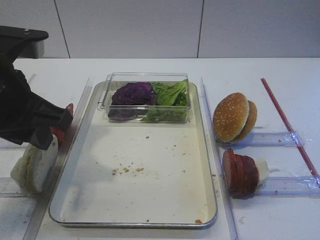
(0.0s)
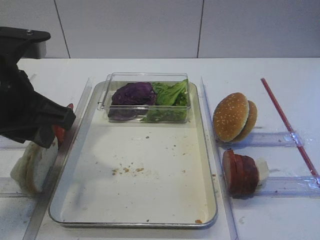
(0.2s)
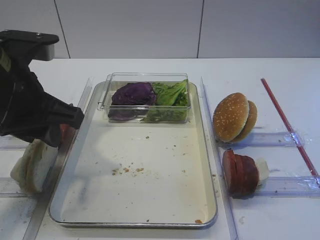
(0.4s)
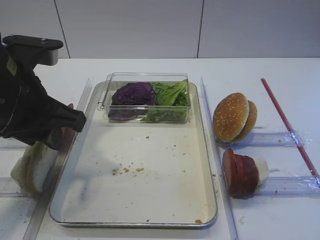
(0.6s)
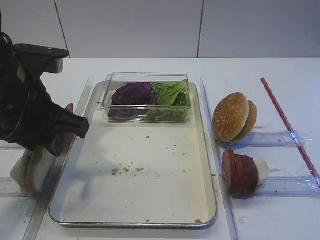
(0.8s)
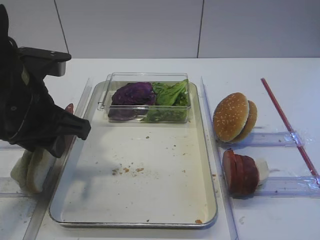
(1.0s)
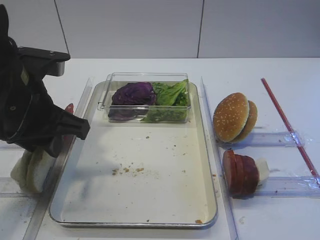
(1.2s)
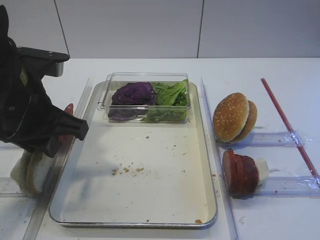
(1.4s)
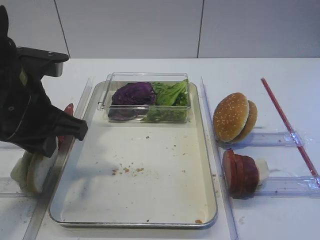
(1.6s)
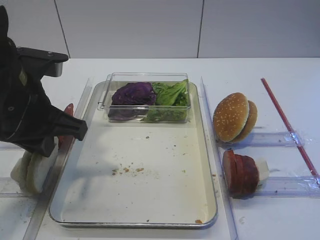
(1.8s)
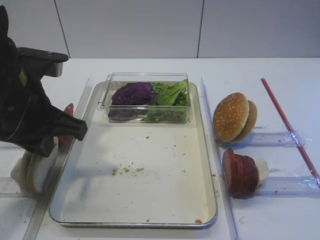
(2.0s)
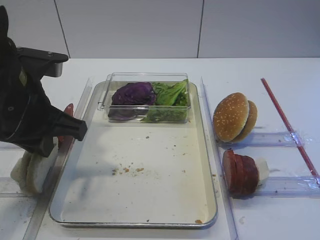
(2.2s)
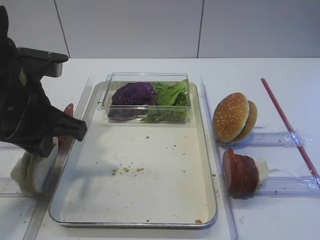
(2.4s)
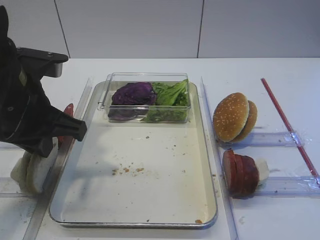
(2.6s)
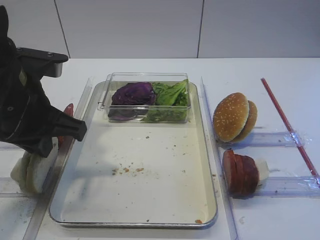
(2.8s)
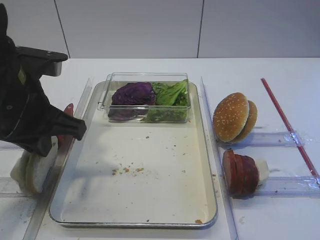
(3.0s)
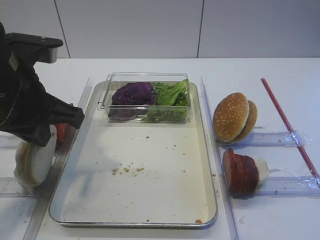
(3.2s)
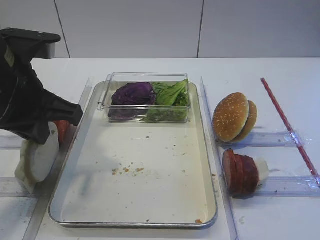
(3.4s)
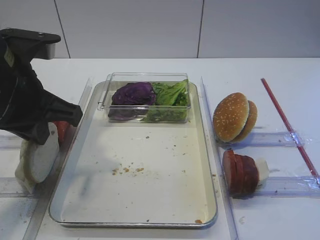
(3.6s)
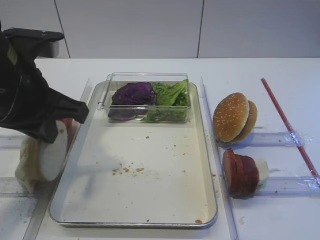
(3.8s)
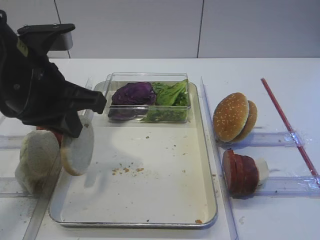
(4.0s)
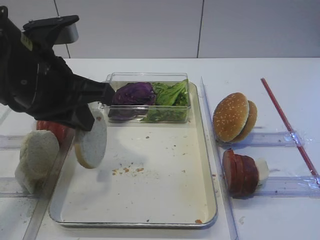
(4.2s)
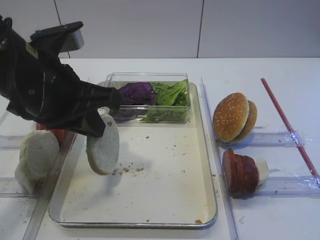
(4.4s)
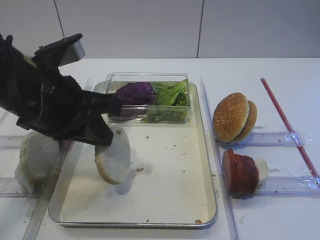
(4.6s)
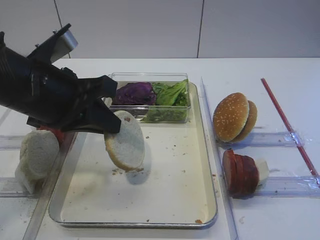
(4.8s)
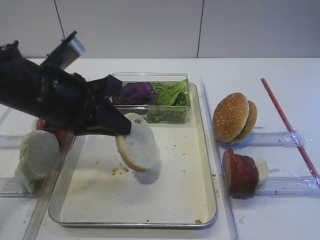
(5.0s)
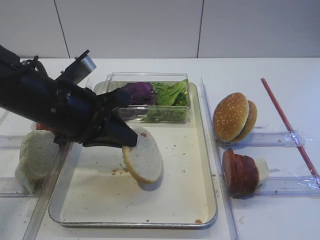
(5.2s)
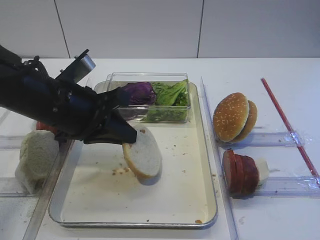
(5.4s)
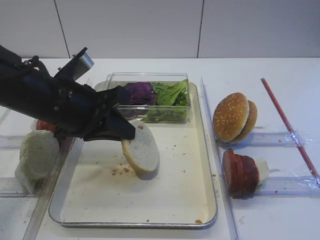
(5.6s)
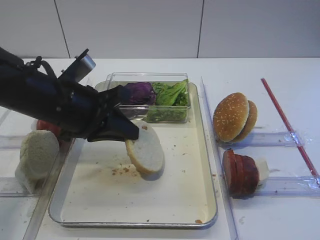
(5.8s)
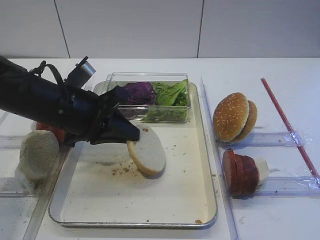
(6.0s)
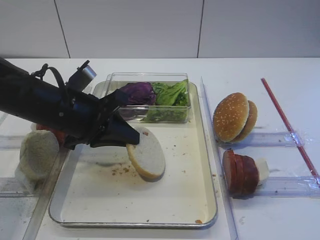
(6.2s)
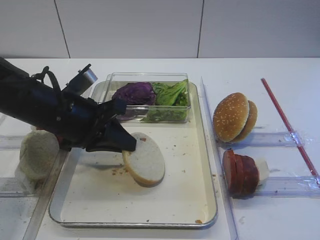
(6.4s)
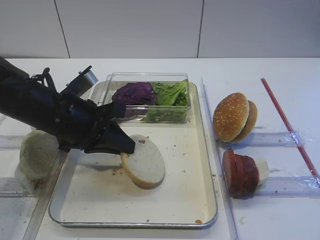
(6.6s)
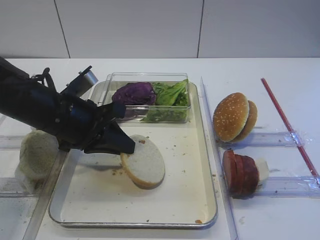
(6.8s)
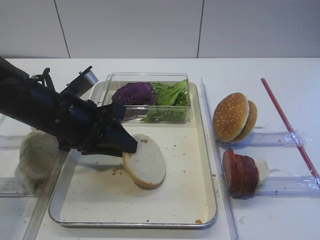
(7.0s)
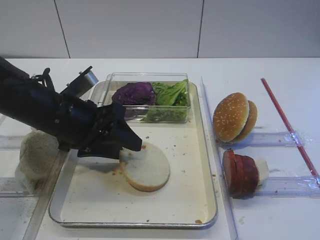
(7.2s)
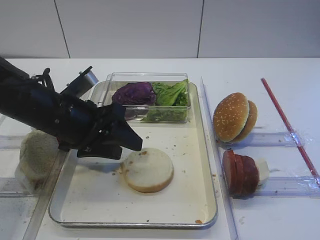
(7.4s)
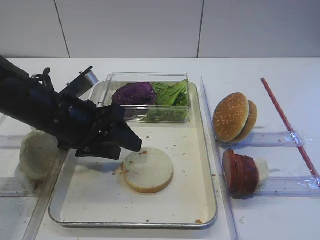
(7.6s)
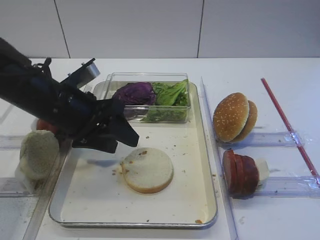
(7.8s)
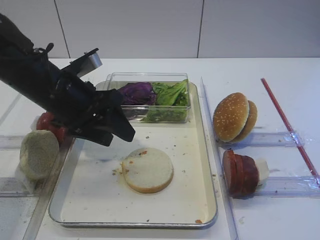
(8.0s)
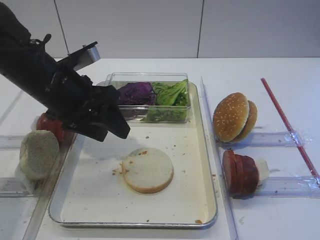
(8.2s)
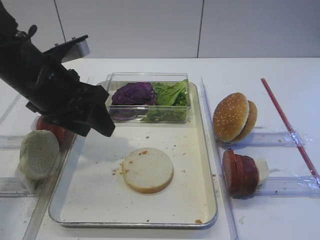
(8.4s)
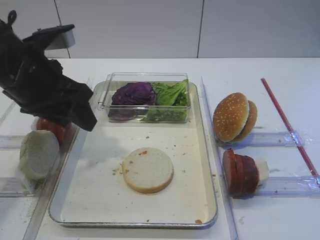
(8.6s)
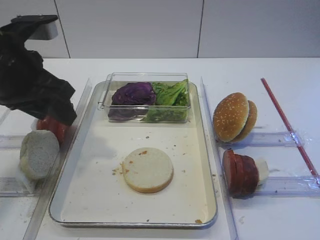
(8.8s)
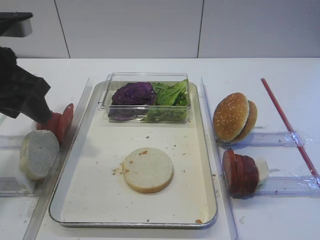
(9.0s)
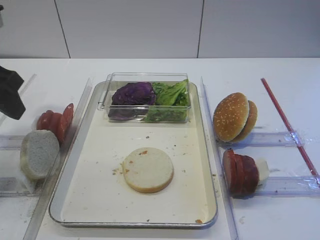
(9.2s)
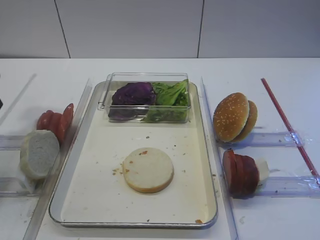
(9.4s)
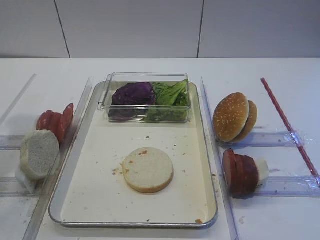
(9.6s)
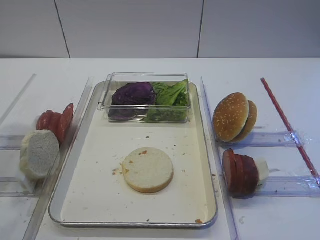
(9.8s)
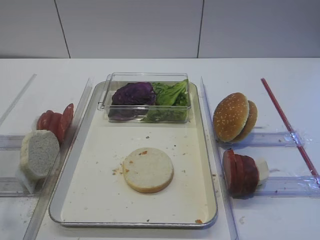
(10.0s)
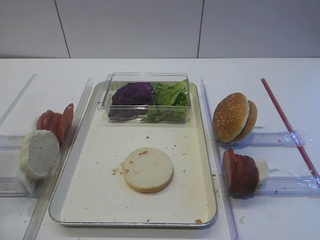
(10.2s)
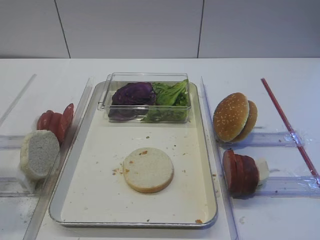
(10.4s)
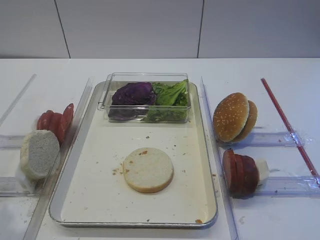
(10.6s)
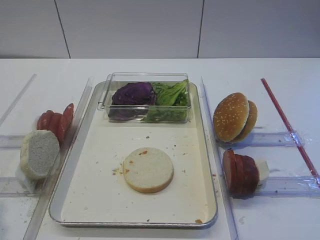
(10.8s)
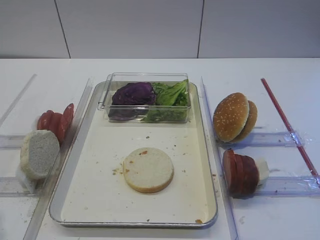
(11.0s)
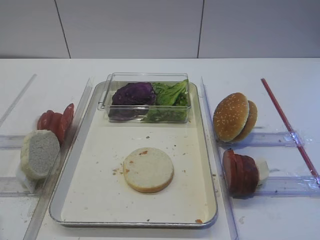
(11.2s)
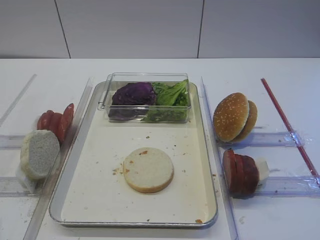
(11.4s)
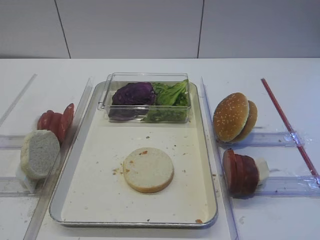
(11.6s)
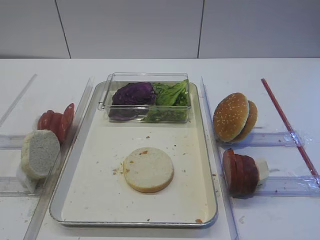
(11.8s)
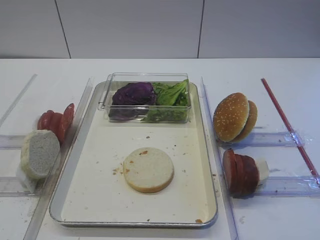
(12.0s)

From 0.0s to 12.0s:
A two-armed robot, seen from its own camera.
Step, from 0.0s to 3.4s: Pick up the bread slice with the left gripper.
Step, from 3.6s to 7.8s: Place the bread slice on the tray with the left gripper.
From 0.0s to 1.6s: There are only small adjustments of the grippers.
From 1.6s to 3.0s: Neither gripper changes place.
From 4.4s to 6.0s: The left gripper travels downward by roughly 10 cm.
From 6.0s to 7.6s: The left gripper opens its fingers.
From 7.6s to 9.0s: The left gripper heads upward and to the left, covering about 15 cm.
From 9.0s to 10.4s: The left gripper shifts approximately 15 cm backward and to the left.
From 10.4s to 12.0s: The left gripper is displaced backward by approximately 10 cm.

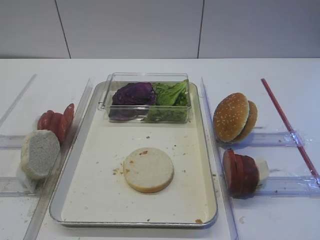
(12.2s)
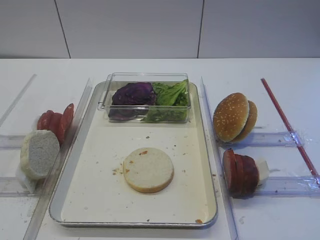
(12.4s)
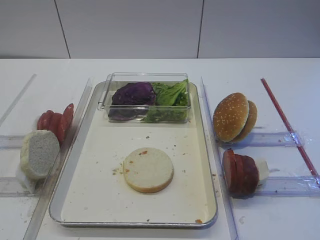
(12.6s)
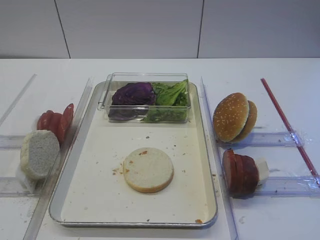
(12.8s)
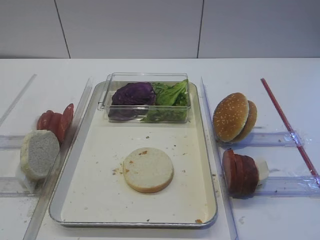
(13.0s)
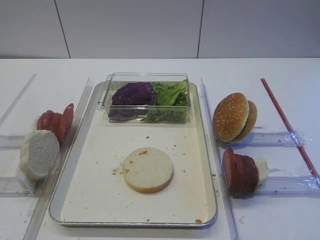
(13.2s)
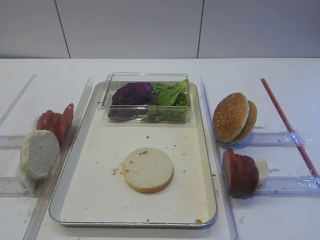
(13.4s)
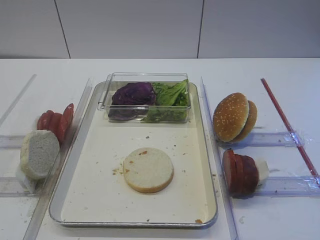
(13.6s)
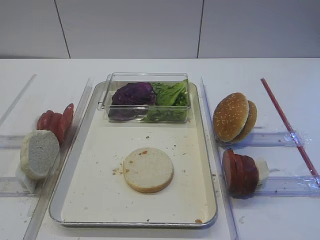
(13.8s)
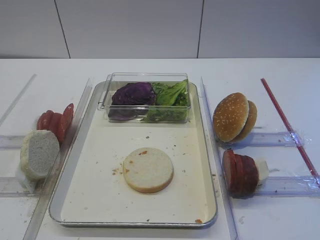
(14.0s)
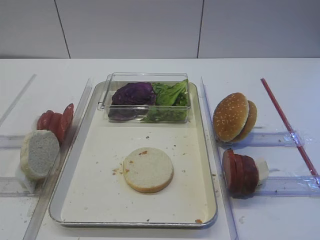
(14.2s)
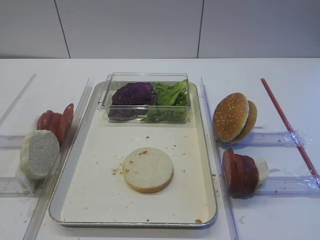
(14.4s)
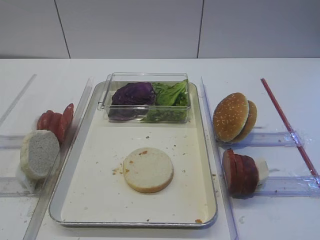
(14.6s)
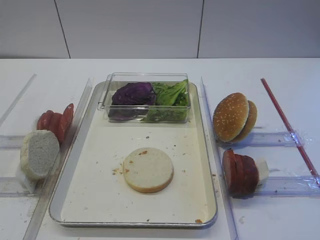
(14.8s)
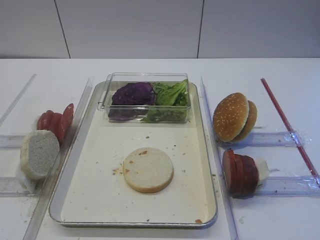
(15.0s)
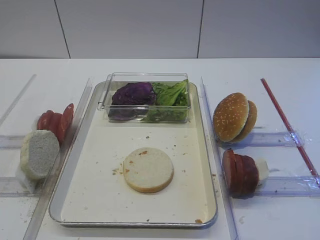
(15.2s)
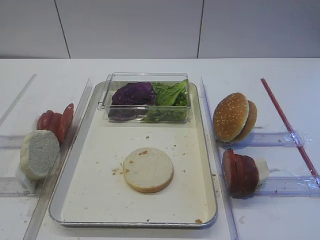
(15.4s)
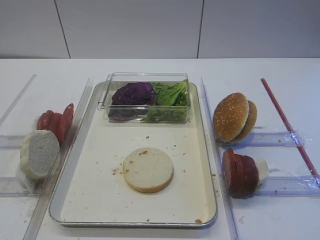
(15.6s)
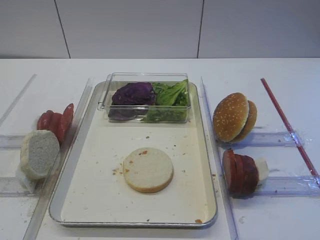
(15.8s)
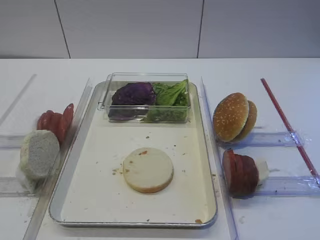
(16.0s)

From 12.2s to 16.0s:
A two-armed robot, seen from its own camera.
From 12.2s to 16.0s: The two grippers keep their place.

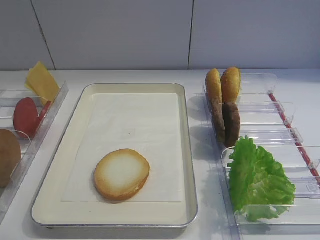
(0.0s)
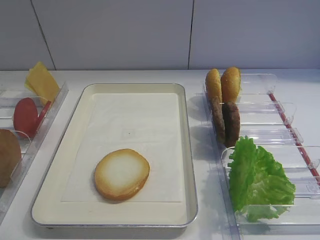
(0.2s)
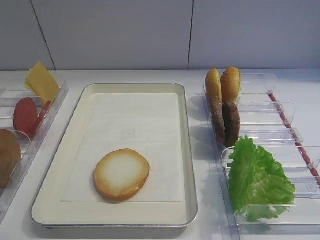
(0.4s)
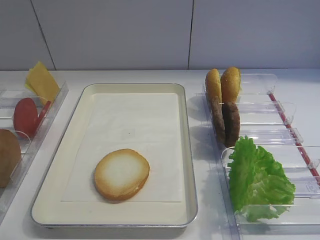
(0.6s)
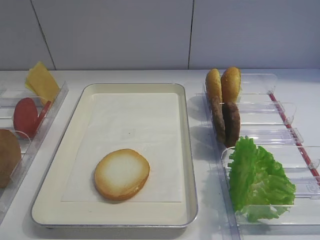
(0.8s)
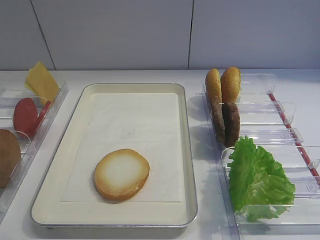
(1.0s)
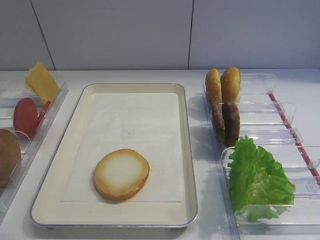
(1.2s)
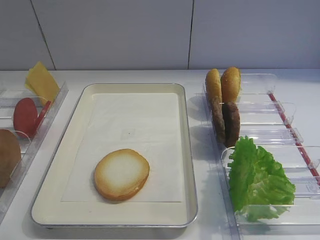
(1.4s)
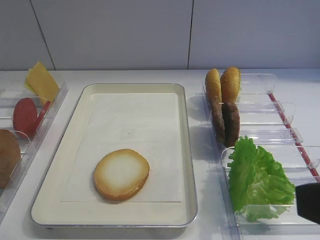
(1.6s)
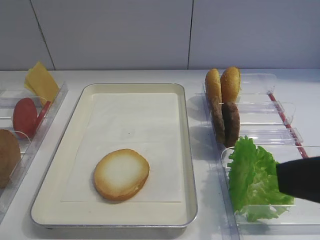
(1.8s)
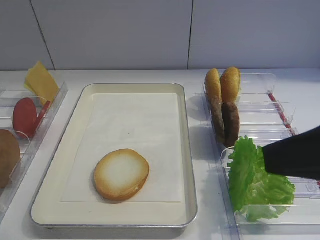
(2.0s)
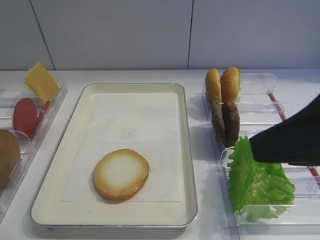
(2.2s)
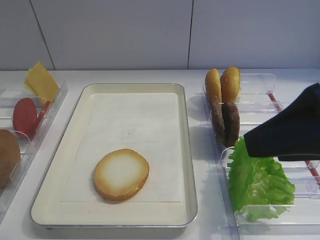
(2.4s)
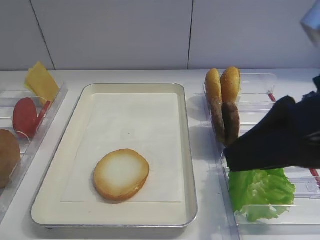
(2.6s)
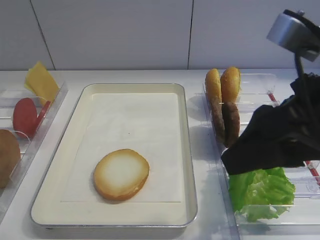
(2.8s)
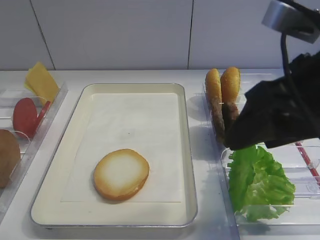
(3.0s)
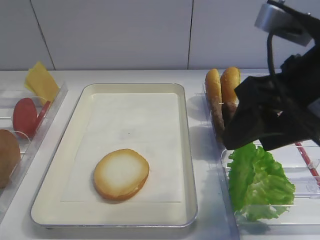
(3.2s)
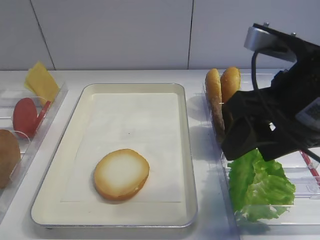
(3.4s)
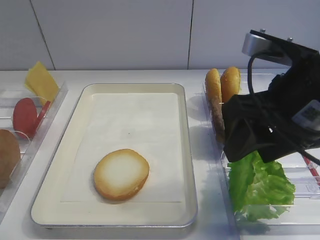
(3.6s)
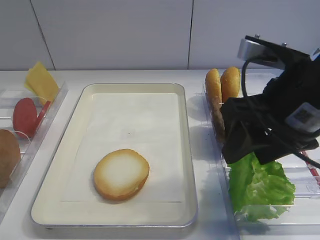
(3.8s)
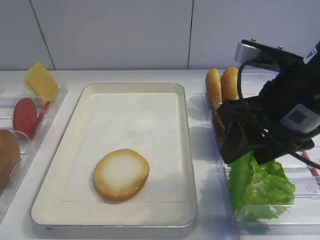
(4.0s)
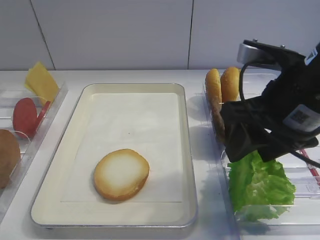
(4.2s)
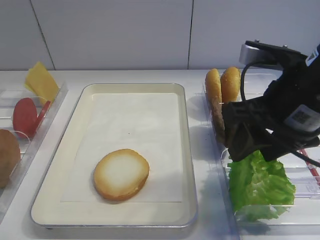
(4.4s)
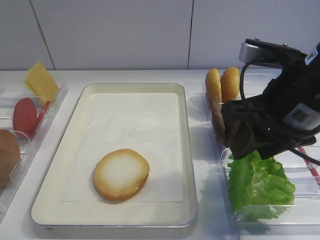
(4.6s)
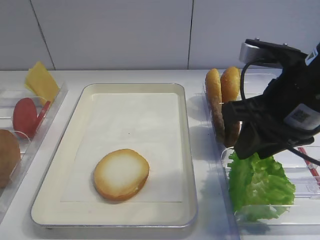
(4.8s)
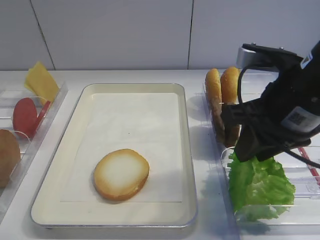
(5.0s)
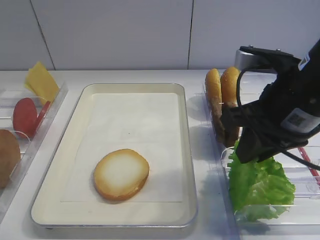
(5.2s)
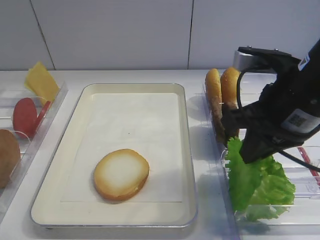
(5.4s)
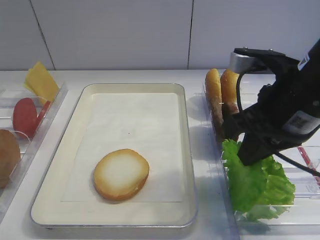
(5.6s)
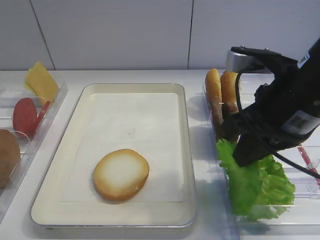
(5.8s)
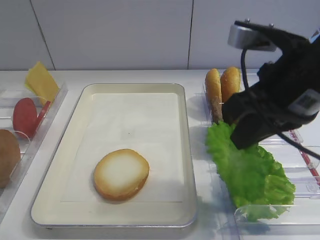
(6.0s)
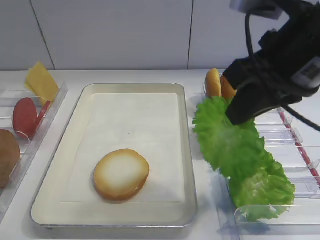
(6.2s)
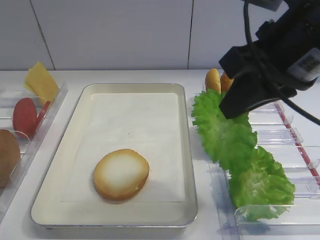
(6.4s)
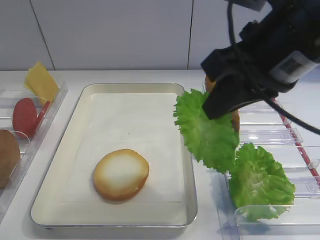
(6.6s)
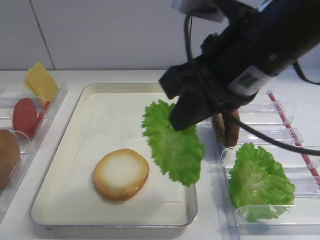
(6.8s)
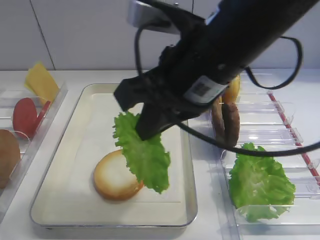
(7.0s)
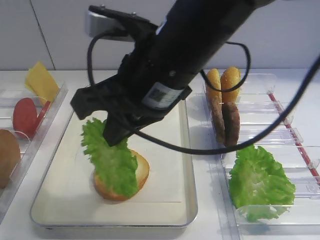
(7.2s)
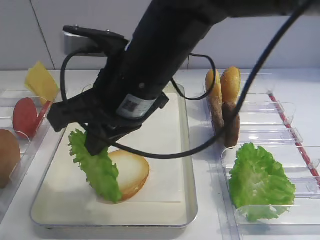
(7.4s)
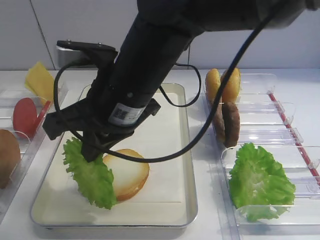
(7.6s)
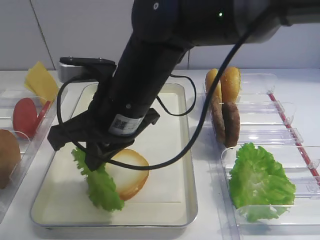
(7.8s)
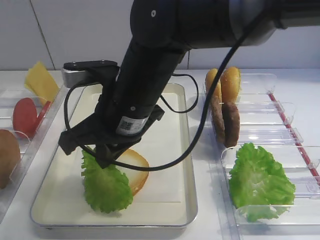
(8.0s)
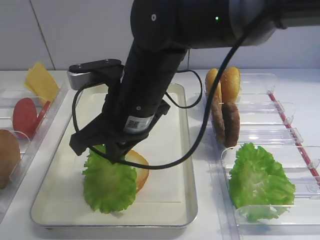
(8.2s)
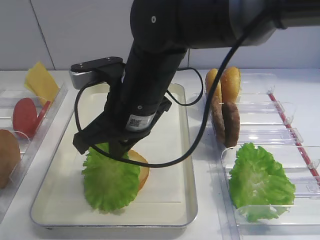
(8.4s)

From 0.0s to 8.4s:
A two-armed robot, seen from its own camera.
Step, from 0.0s to 6.4s: Pick up the lettuce leaf with the right gripper.
From 1.4s to 2.8s: The right gripper heads forward and to the left, covering approximately 15 cm.
From 2.8s to 4.2s: The right gripper heads forward, covering approximately 5 cm.
From 4.2s to 5.6s: The right gripper closes up.
From 5.6s to 7.0s: The right gripper travels to the left and upward by roughly 10 cm.
From 7.0s to 8.4s: The right gripper moves to the left and downward, about 10 cm.
